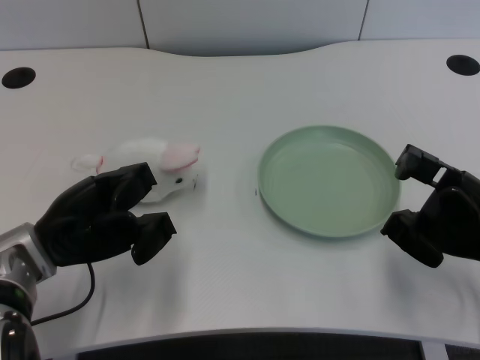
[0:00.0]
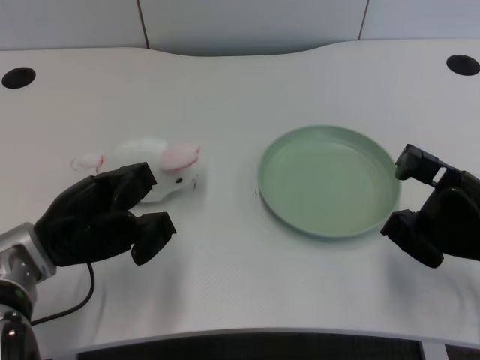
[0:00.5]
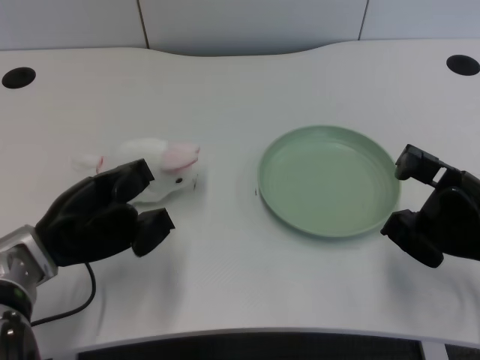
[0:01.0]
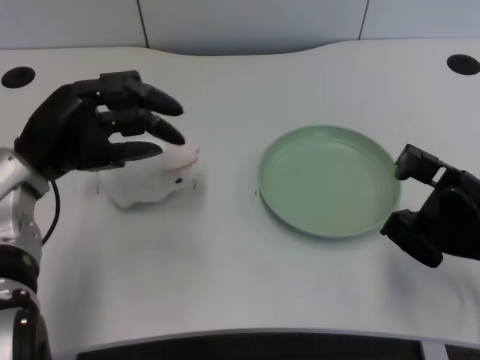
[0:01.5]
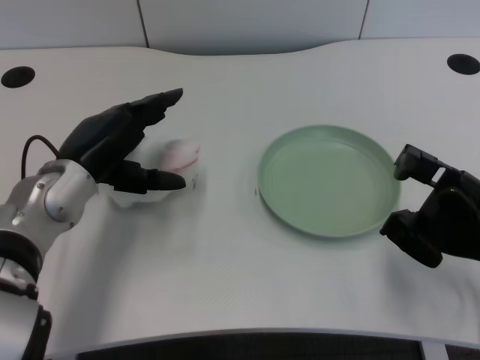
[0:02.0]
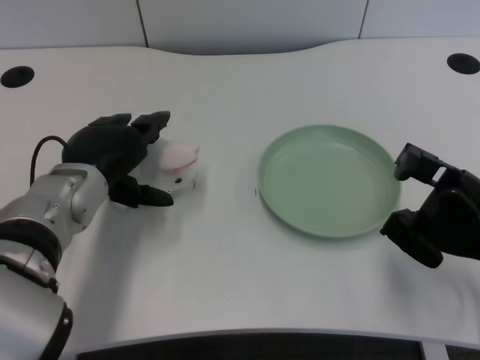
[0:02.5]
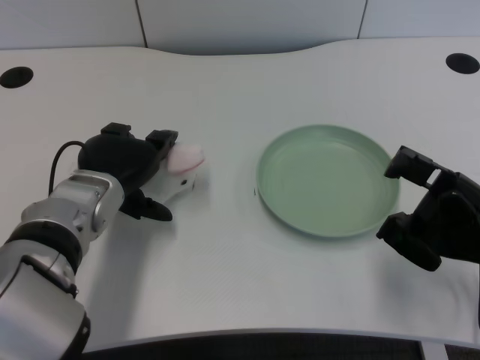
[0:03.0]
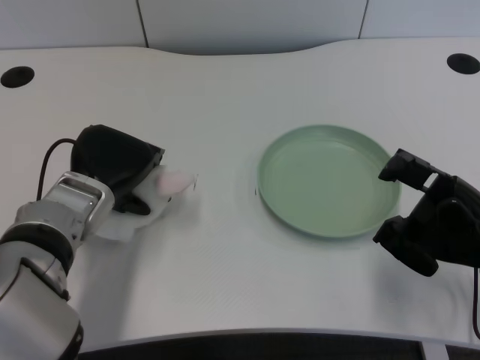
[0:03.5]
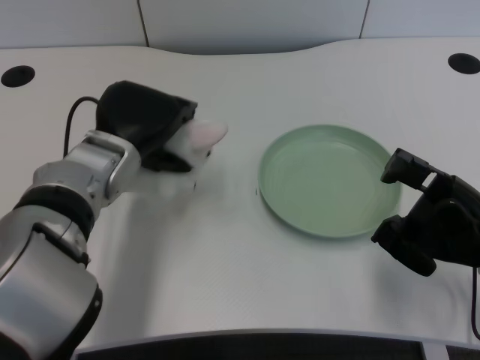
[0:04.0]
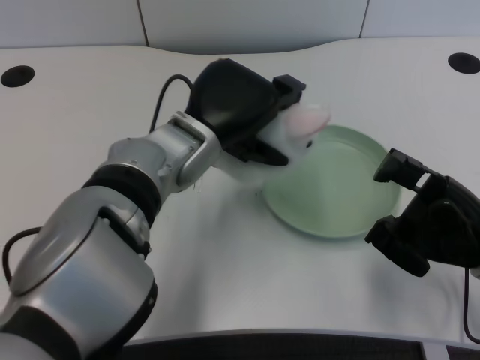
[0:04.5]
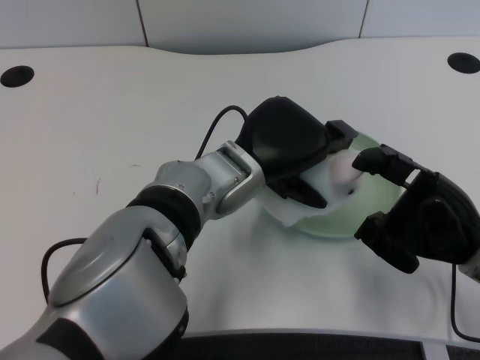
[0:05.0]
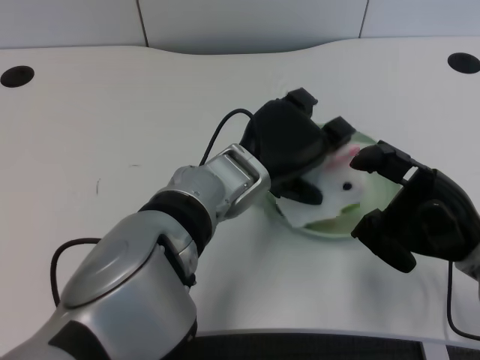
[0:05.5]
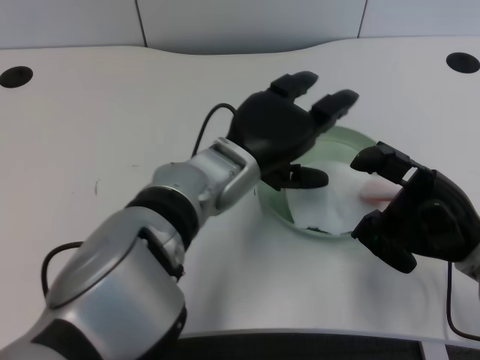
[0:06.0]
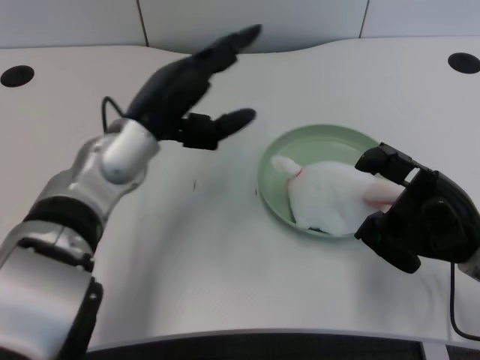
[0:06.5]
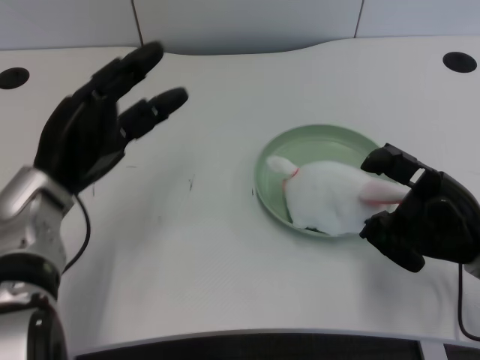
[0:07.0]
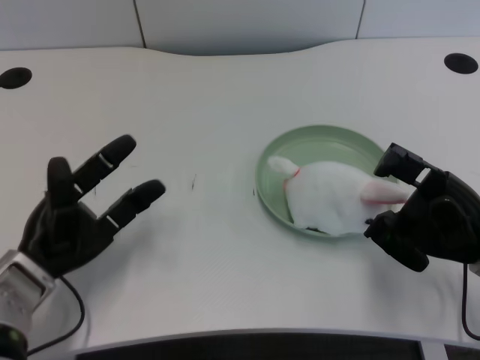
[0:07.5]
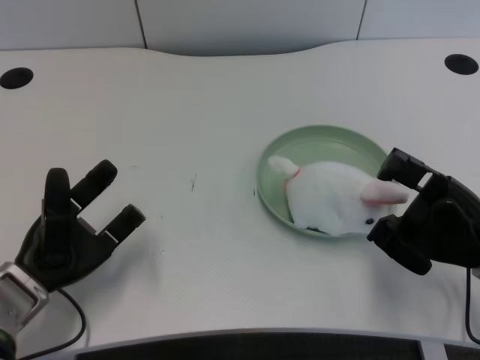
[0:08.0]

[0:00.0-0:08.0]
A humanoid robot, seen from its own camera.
Task of the whole recording: pick up the rabbit doll from the table and place it on the plate.
Step, 0:01.5 to 0:03.5: Grasp the rabbit doll with the left gripper.
Step, 0:04.0 to 0:05.5: Place the rabbit doll into the plate with the left gripper.
0:02.0 to 0:04.0: The left hand changes place by some 5 cm.
0:04.0 to 0:06.0: The left hand shifts about 10 cm to the right.
0:06.0 to 0:08.0: The left hand heads to the left and downward, covering about 25 cm.

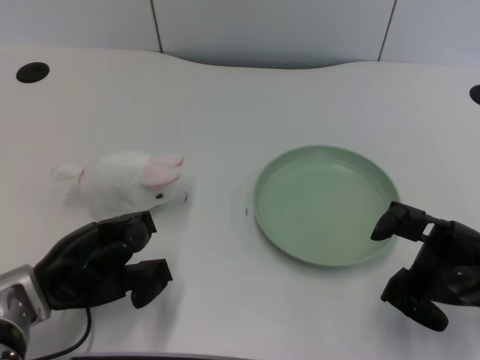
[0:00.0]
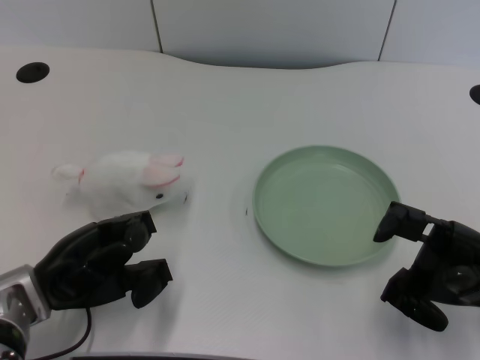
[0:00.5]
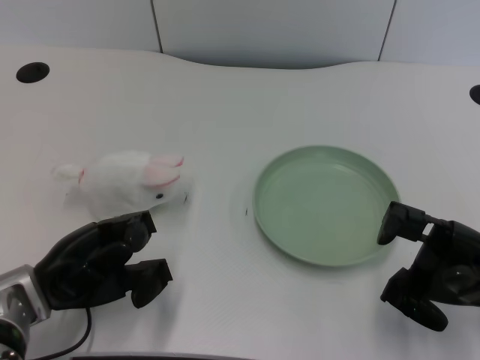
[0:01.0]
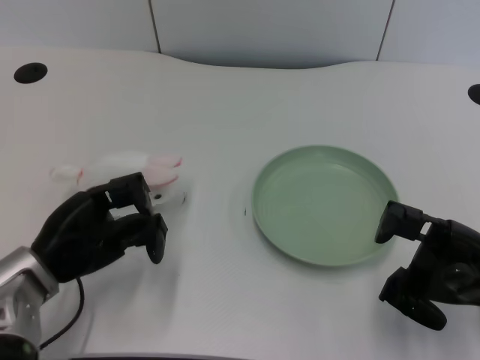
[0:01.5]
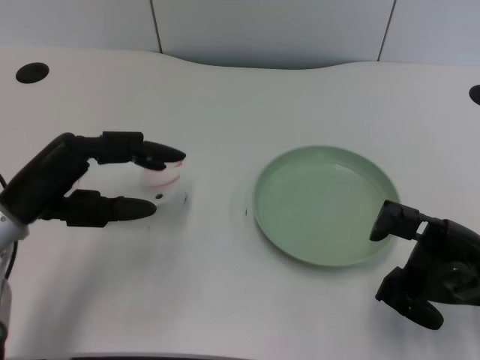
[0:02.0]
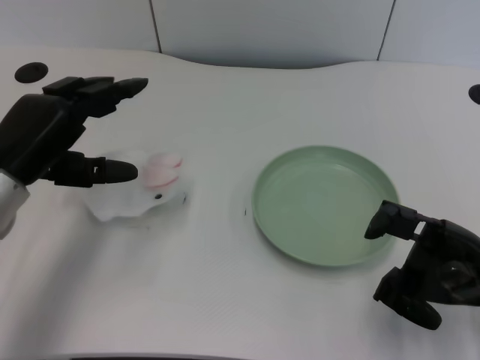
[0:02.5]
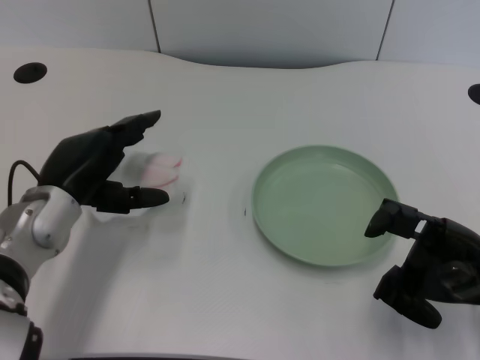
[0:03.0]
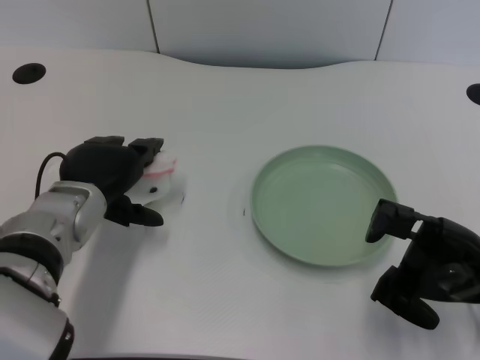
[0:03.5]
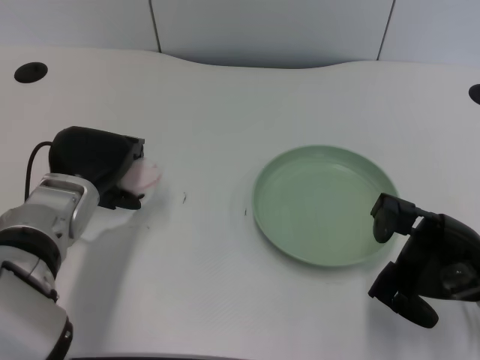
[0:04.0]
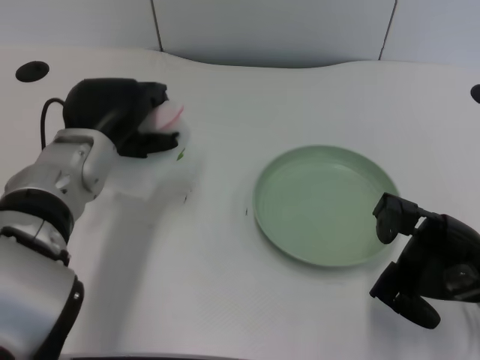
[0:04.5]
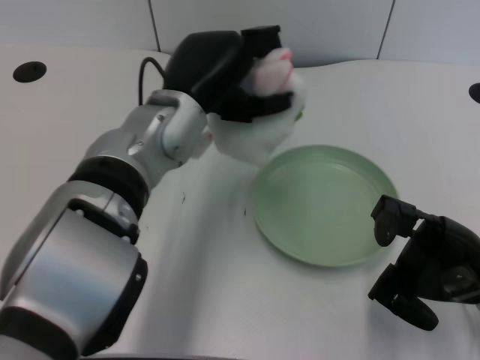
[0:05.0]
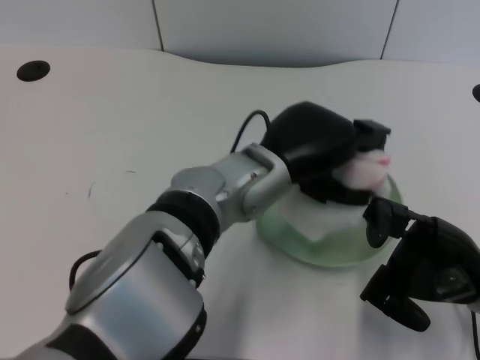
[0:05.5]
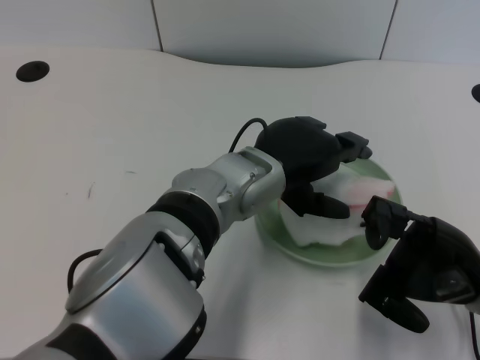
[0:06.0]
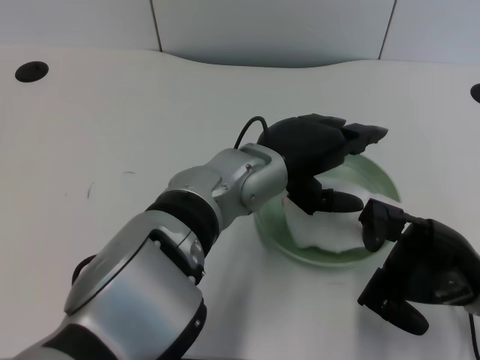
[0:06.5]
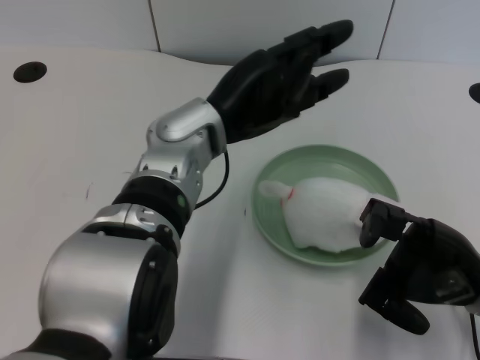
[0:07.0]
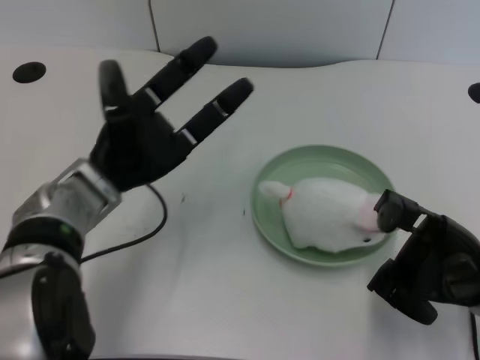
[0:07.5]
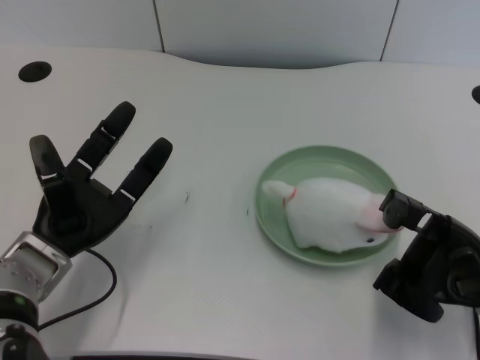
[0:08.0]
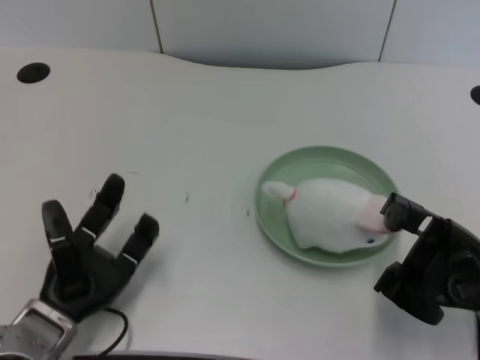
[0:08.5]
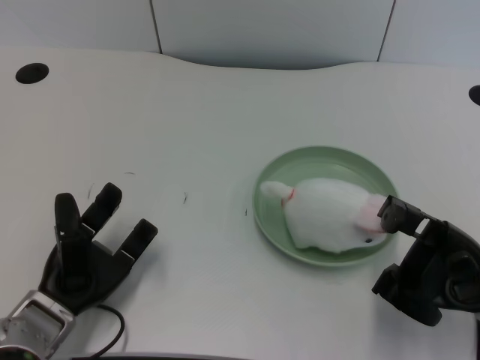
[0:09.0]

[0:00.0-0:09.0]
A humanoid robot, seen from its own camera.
Task of the whole recording: pick up the rabbit doll from the table and place it on the plate.
Step, 0:01.5 to 0:04.0: Grasp the rabbit doll with the left gripper.
Step, 0:04.5 to 0:06.0: Place the rabbit doll into the plate with the left gripper.
0:02.0 to 0:04.5: The left hand heads to the right and forward, covering roughly 10 cm.
0:04.5 to 0:07.0: The left hand goes roughly 10 cm to the right.
0:07.0 to 0:09.0: The left hand heads downward, to the left and backward, covering some 25 cm.

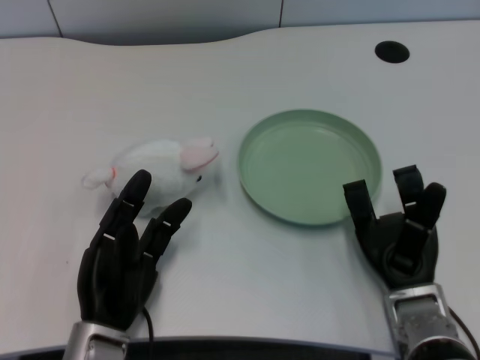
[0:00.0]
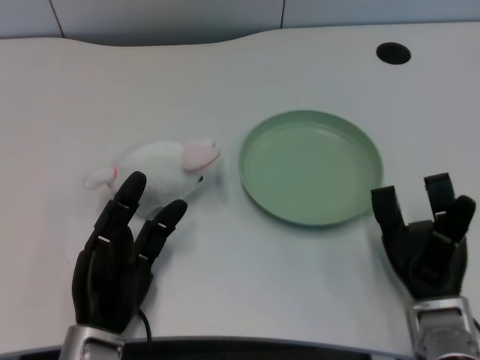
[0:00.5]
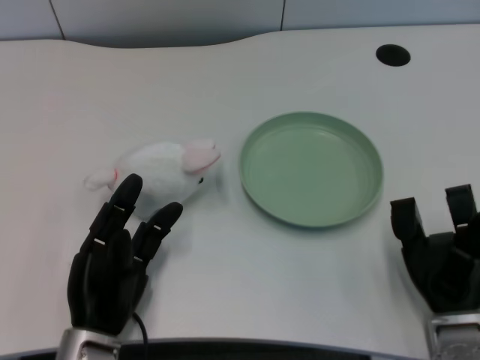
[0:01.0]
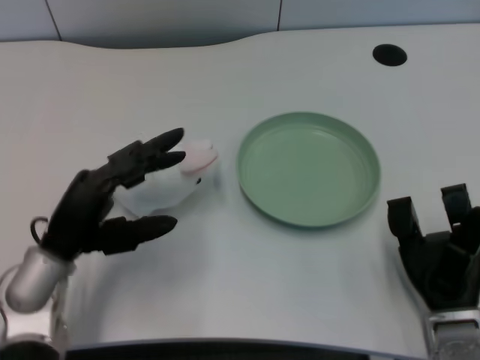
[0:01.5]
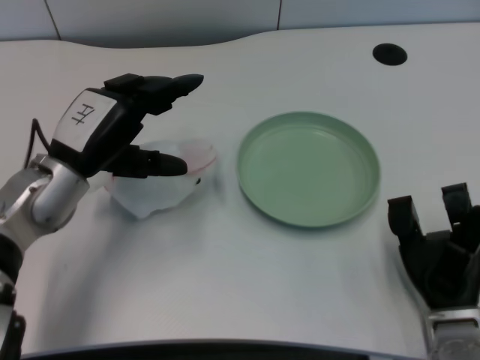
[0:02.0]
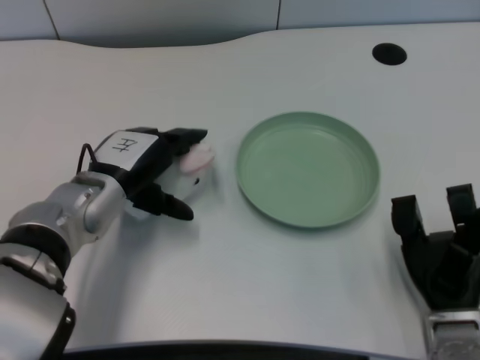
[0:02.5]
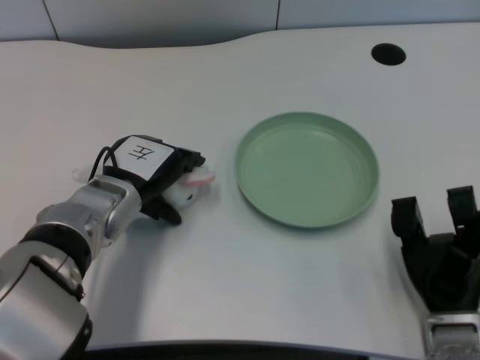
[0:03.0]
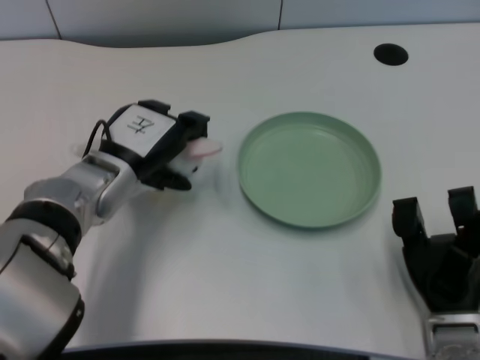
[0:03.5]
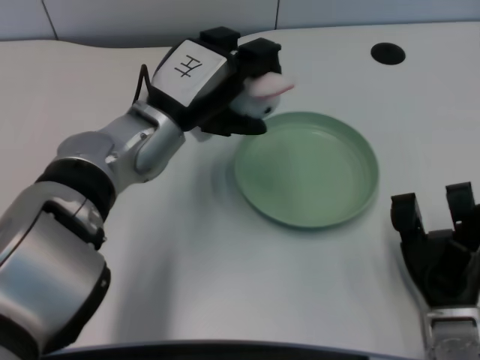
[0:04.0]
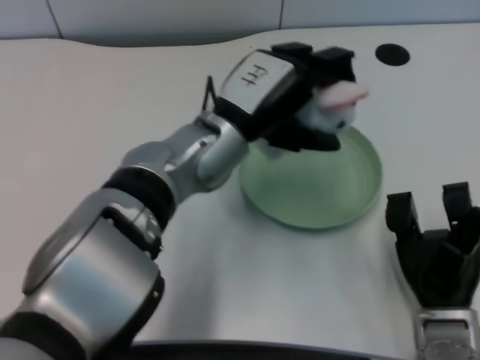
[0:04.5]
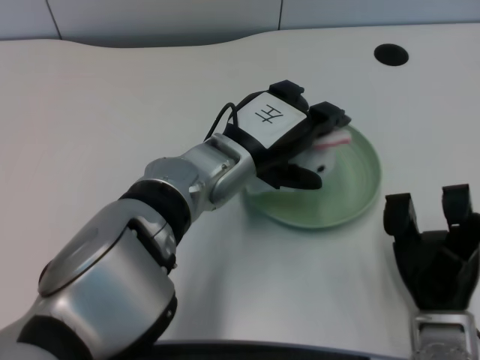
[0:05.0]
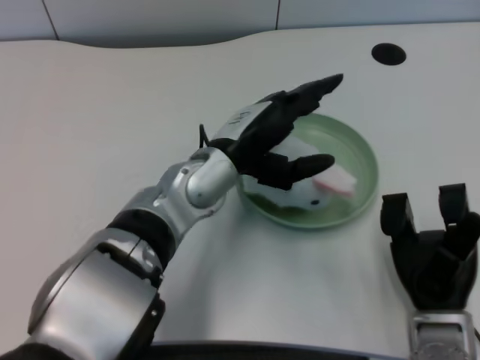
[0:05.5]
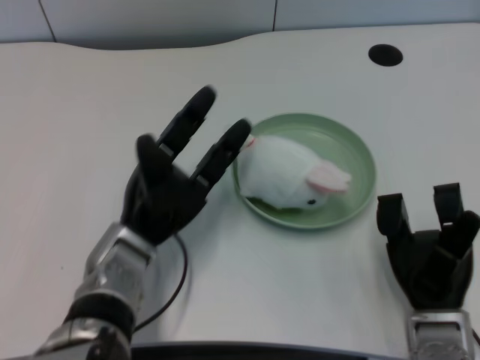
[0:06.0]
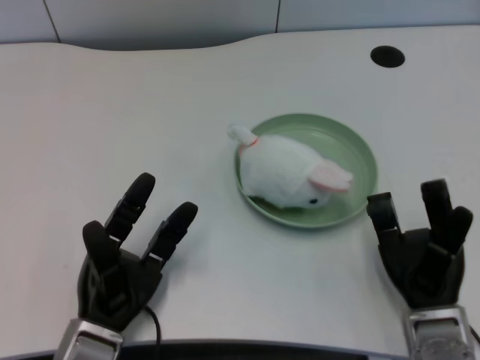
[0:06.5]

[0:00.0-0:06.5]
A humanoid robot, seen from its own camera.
Task of the whole recording: pick up the rabbit doll from the table and place it on the plate.
Step, 0:01.5 to 0:03.0: Grasp the rabbit doll with the left gripper.
Step, 0:03.5 to 0:05.0: Place the rabbit doll into the plate with the left gripper.
0:02.0 to 0:04.5: The left hand travels to the right by approximately 15 cm.
0:04.5 to 0:06.5: The left hand shifts roughly 25 cm downward, backward and to the left.
